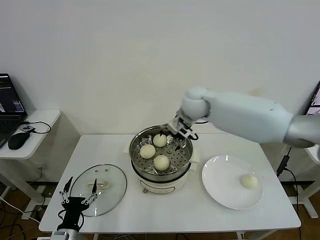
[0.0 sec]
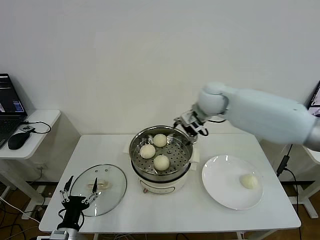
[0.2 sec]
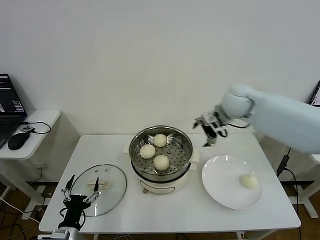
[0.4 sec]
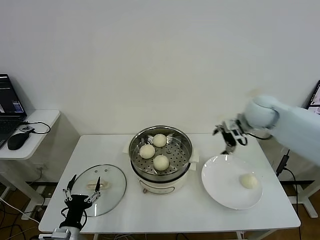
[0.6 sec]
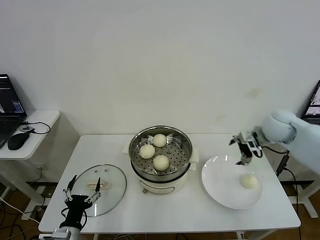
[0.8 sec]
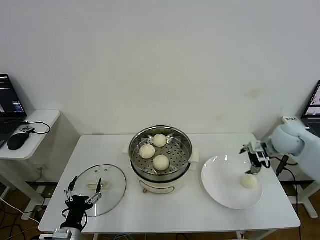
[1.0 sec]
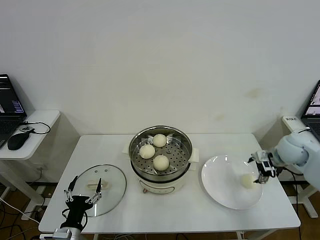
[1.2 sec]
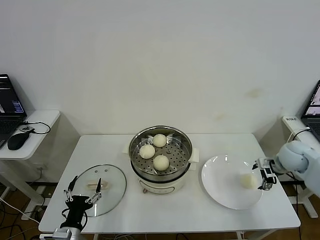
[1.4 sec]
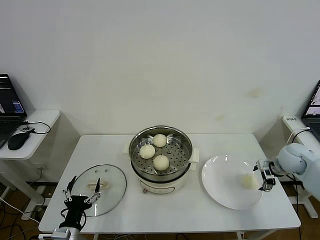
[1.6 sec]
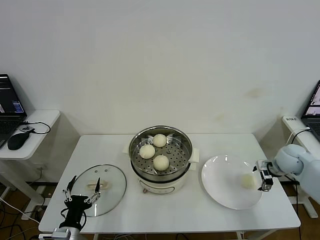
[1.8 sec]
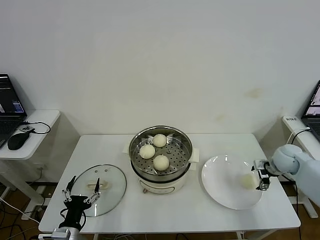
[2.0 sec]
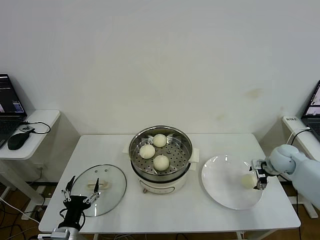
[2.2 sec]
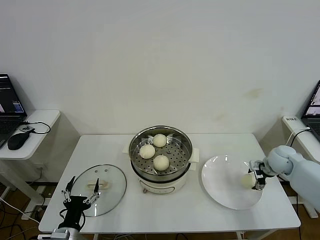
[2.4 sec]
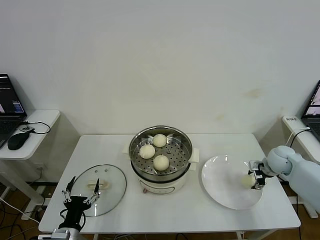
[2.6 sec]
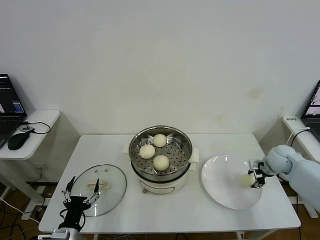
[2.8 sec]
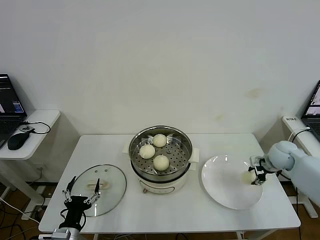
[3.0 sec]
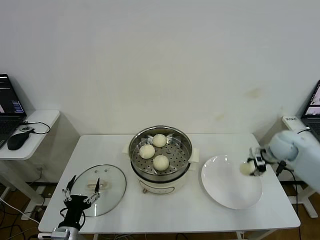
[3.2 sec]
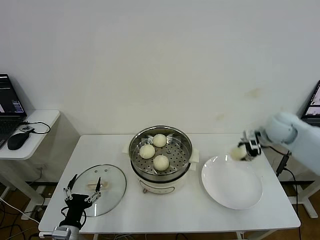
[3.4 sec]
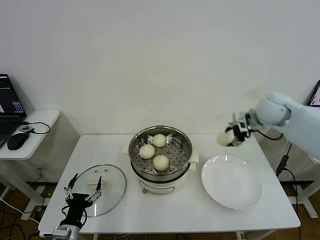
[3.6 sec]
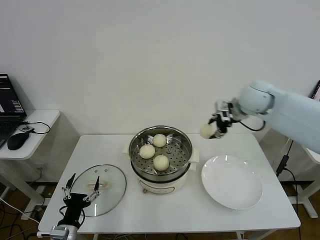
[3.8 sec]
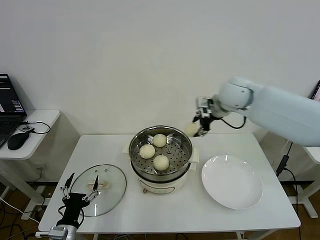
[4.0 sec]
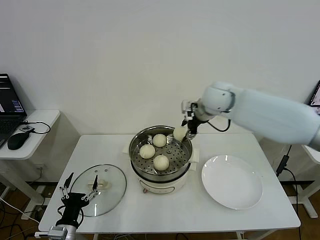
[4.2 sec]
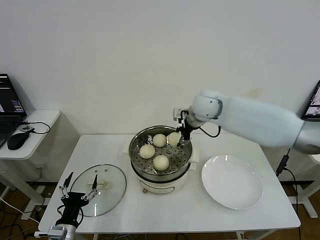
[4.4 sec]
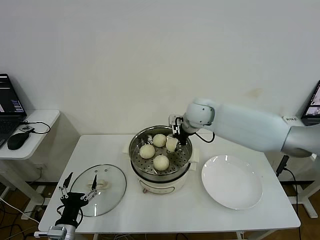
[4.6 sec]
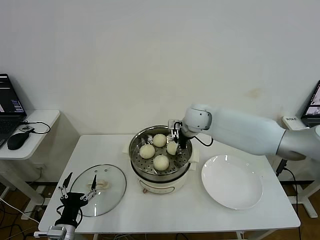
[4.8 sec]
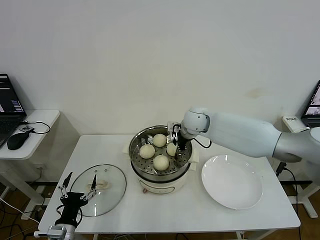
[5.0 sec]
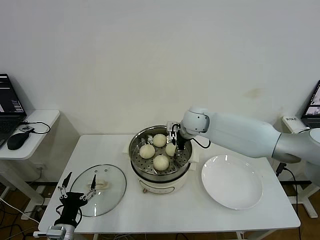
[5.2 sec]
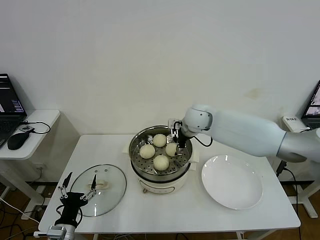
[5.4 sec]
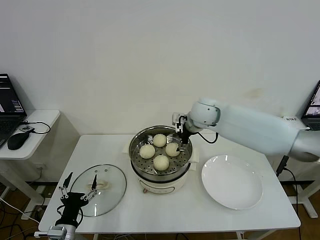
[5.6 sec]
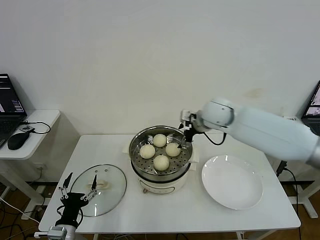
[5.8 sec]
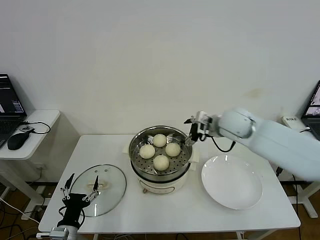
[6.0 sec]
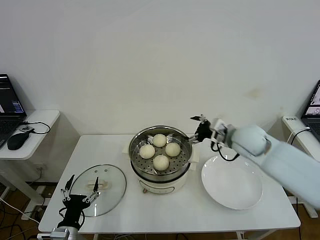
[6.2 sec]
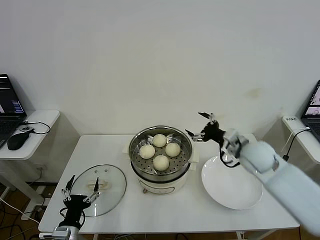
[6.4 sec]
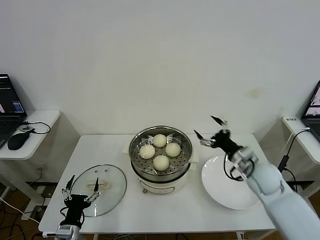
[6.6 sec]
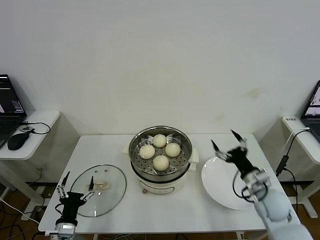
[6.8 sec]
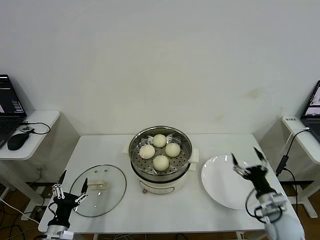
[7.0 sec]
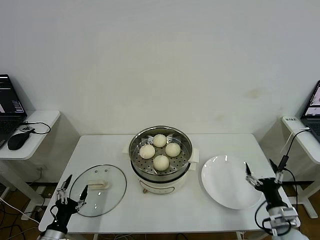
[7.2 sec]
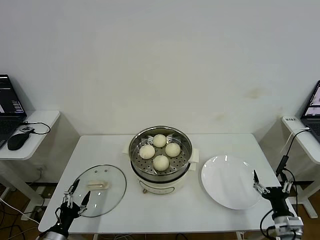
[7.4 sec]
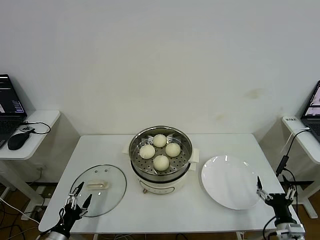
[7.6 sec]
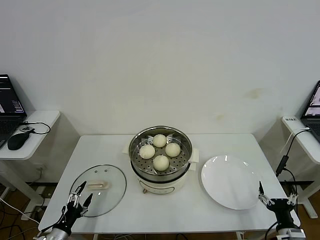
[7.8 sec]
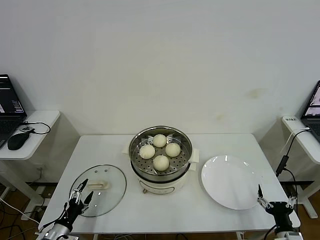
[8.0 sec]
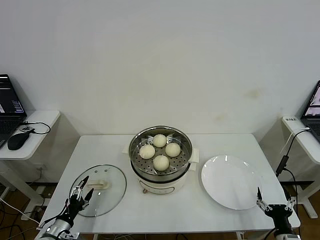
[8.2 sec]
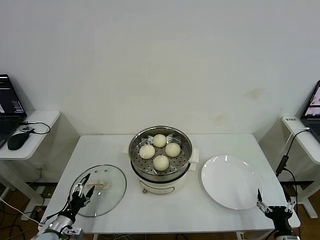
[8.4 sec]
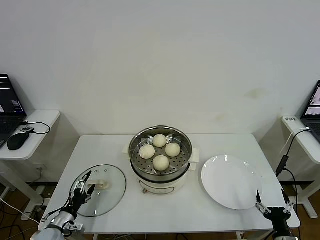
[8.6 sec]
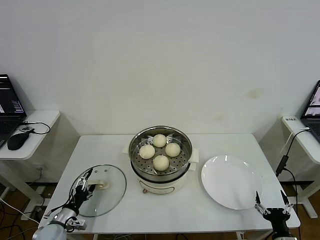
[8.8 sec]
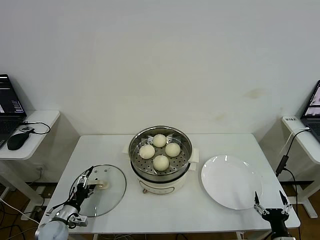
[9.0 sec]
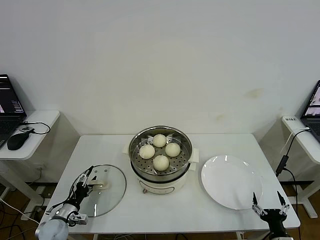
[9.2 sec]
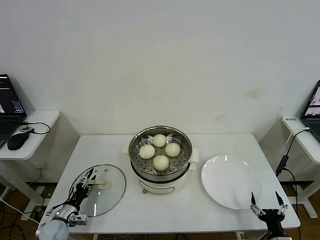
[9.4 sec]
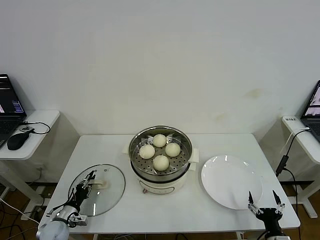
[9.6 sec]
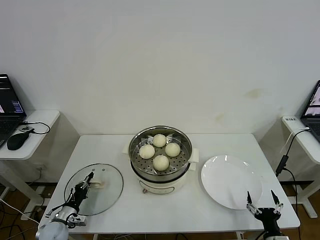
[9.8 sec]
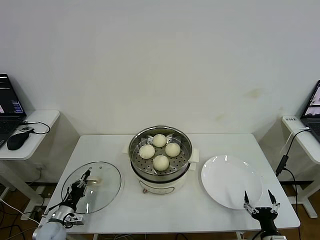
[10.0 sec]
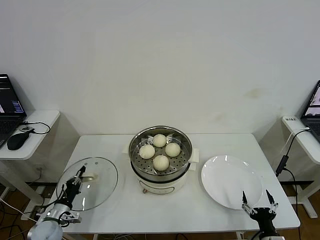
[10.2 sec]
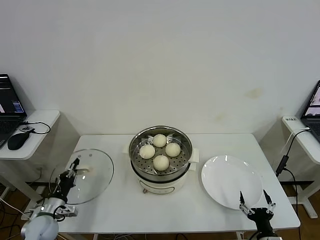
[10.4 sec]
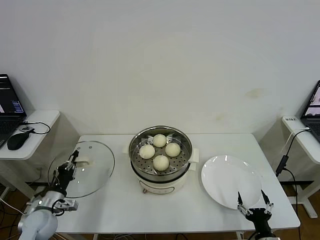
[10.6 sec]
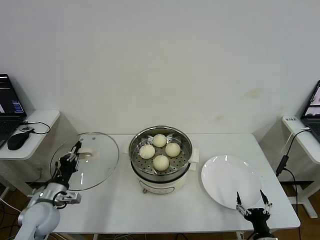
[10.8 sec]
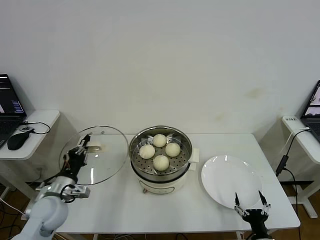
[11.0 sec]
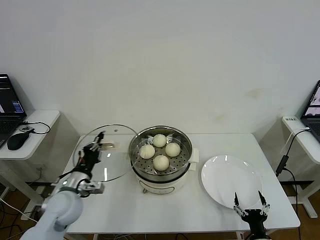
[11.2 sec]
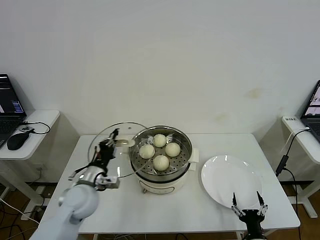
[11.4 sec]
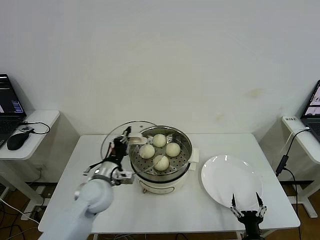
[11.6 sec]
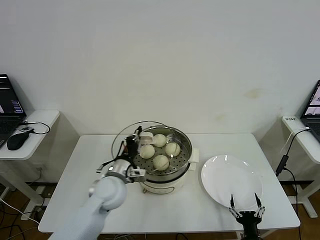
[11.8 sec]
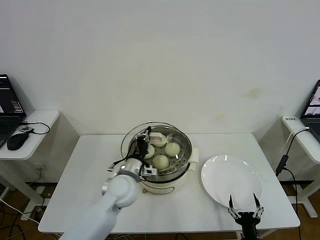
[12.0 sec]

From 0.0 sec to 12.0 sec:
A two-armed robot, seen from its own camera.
Step, from 0.0 sec to 2.6 sec: Grasp the baozi in the plate with right gripper.
Step, from 2.8 sec to 5.4 sec: Place the baozi on the steamer with right gripper.
Step, from 5.6 sec to 10.0 sec: Grasp the pot lid with left gripper.
From 0.0 sec to 1.6 sec: The right gripper heads to the right and downward, covering approximately 35 cm.
From 1.6 sec to 3.0 sec: The right gripper closes.
From 3.0 sec to 4.4 sec: The right gripper shifts about 35 cm to the left and upward.
From 4.4 sec to 6.0 sec: The right gripper moves to the right and backward, about 10 cm, and opens.
From 6.0 sec to 7.6 sec: The left gripper moves to the left and downward, roughly 10 cm. The right gripper travels backward, downward and to the right by some 50 cm.
From 7.6 sec to 9.0 sec: The left gripper goes about 10 cm forward. The right gripper moves approximately 5 cm.
From 9.0 sec to 10.4 sec: The left gripper closes up.
From 10.4 sec to 12.0 sec: The right gripper goes some 5 cm to the left. The left gripper heads to the right and upward, covering approximately 30 cm.

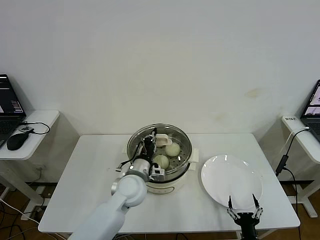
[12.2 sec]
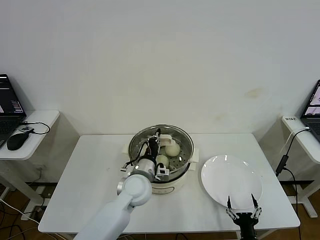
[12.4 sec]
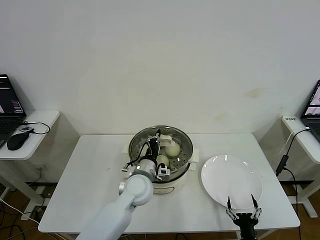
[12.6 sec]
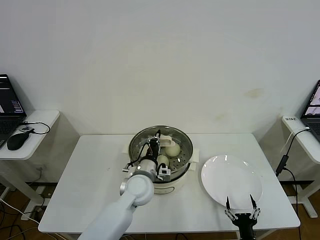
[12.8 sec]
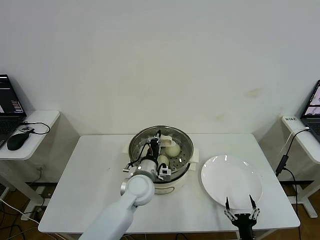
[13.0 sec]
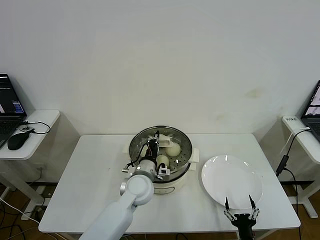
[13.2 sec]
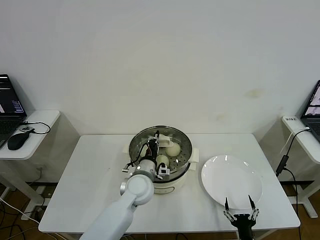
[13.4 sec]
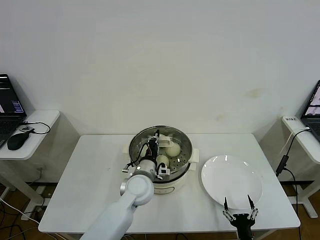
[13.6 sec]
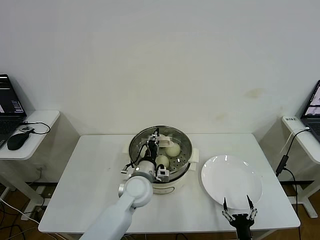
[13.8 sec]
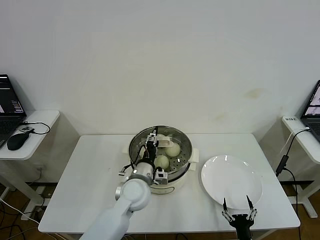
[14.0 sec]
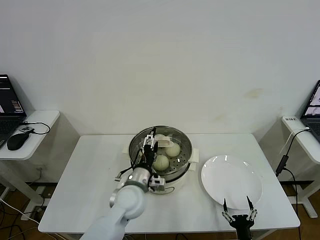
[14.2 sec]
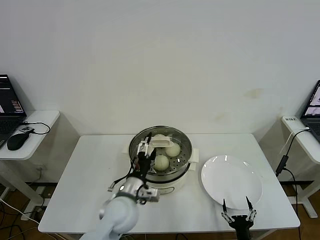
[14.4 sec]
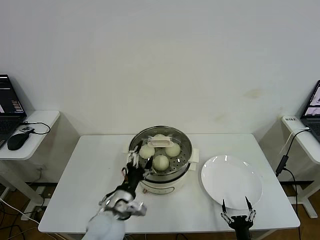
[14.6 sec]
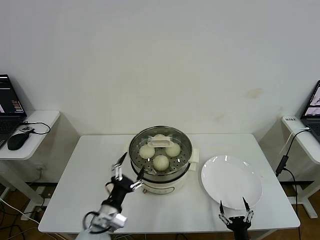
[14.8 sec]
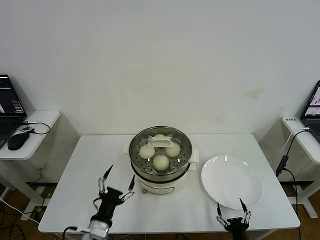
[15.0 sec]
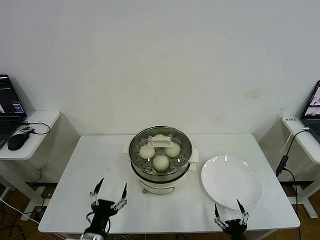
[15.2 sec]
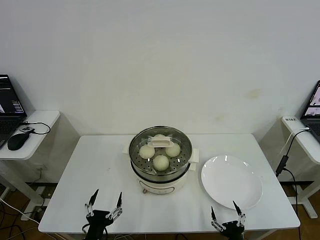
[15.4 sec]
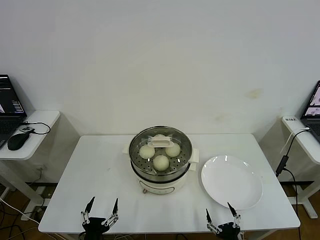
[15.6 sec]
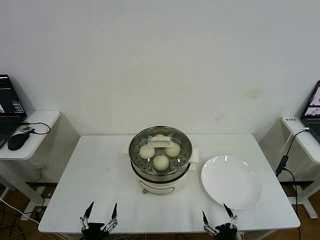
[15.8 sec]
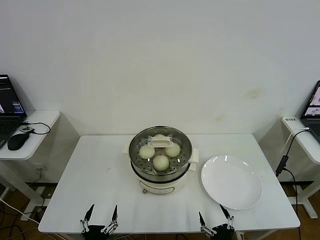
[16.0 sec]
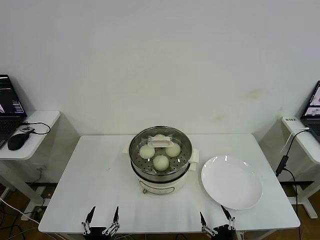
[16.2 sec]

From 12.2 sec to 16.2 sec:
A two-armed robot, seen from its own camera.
From 12.2 sec to 13.6 sec: The grippers move only a little.
From 13.6 sec to 14.8 sec: The left gripper goes roughly 15 cm backward and to the left, and opens.
From 14.8 sec to 16.2 sec: The right gripper shifts by about 5 cm, while the left gripper shifts roughly 15 cm backward and downward.
